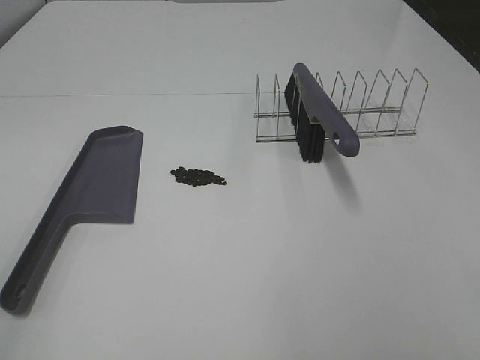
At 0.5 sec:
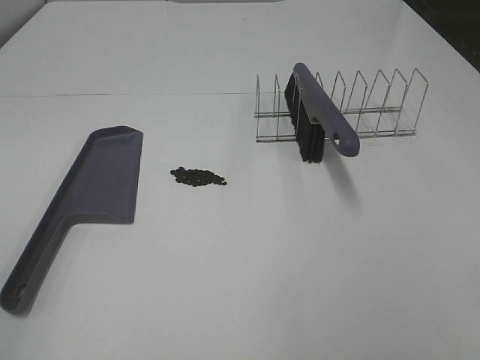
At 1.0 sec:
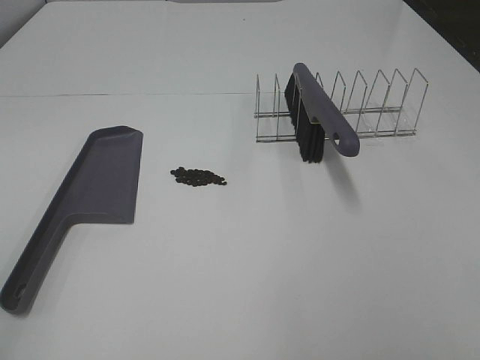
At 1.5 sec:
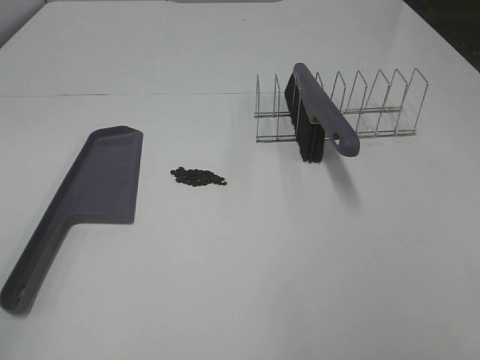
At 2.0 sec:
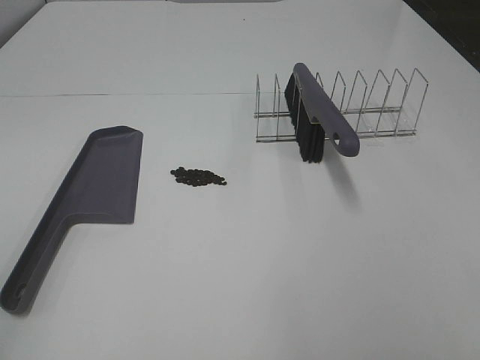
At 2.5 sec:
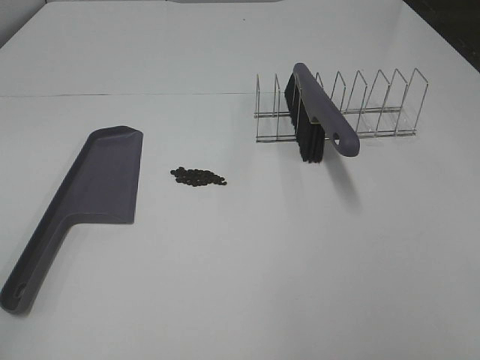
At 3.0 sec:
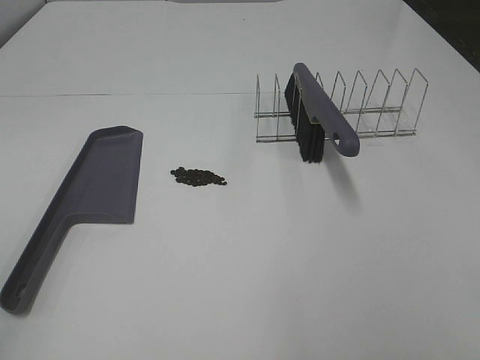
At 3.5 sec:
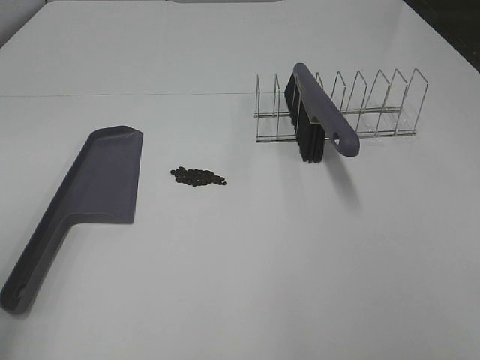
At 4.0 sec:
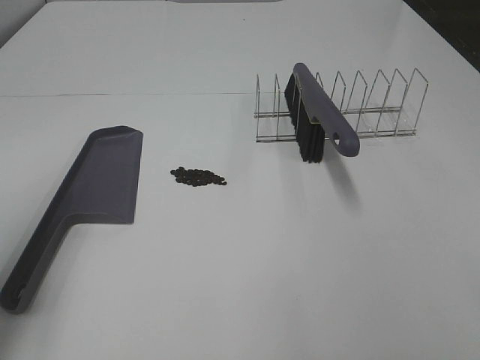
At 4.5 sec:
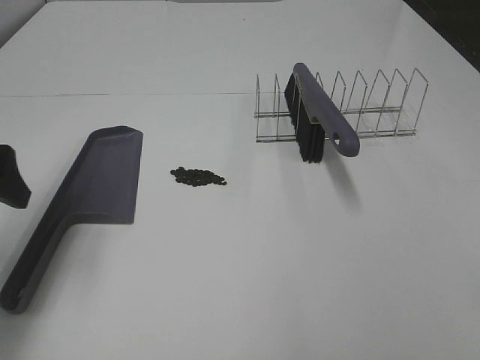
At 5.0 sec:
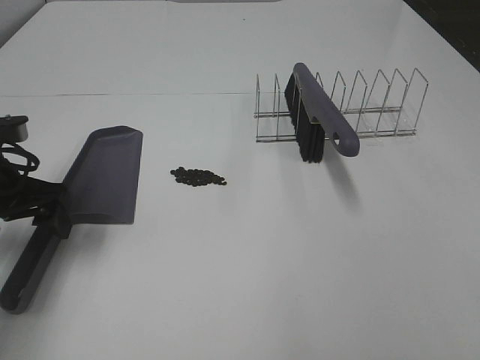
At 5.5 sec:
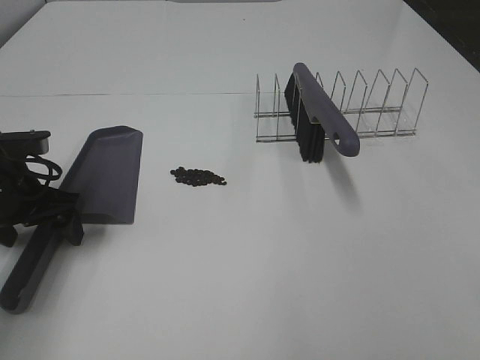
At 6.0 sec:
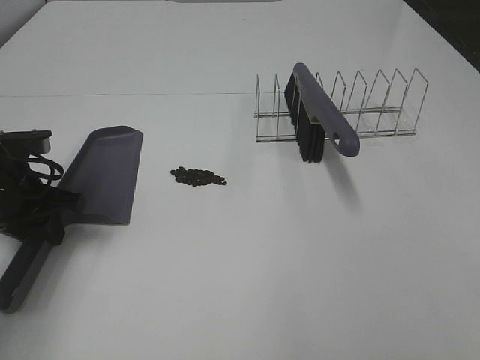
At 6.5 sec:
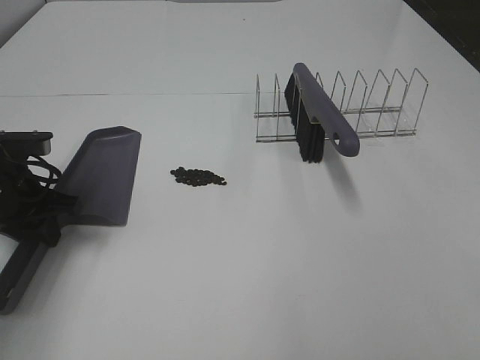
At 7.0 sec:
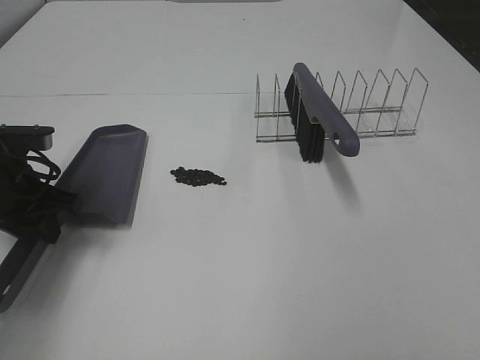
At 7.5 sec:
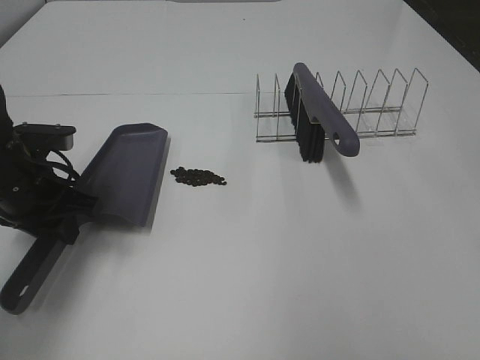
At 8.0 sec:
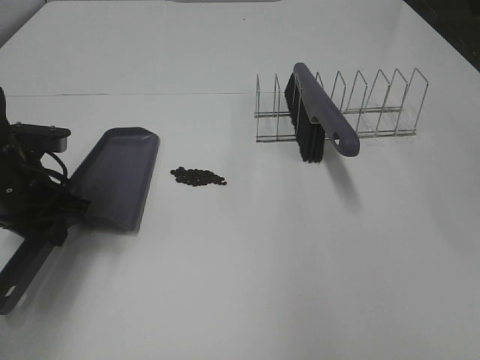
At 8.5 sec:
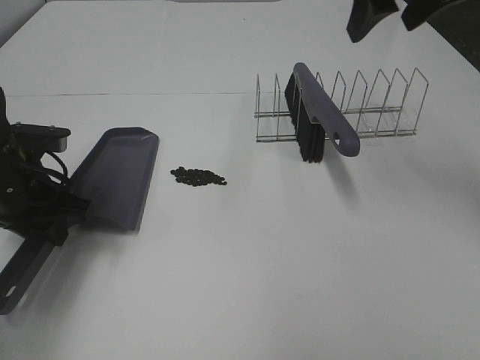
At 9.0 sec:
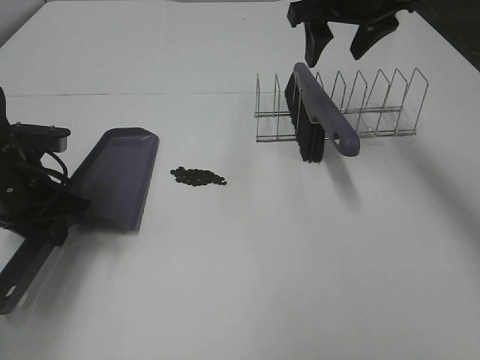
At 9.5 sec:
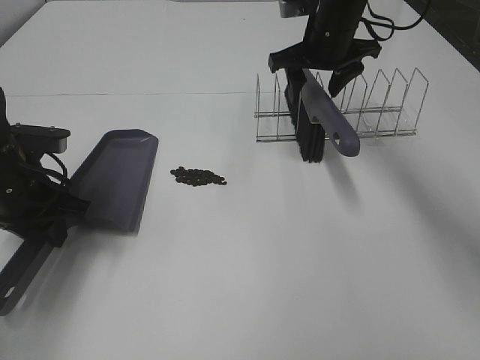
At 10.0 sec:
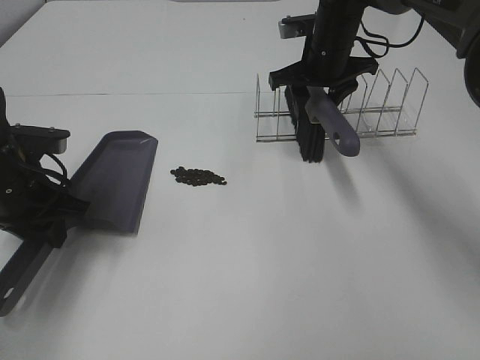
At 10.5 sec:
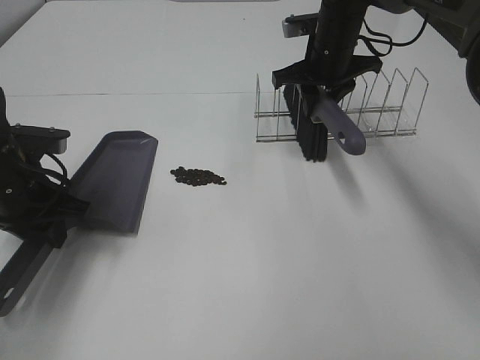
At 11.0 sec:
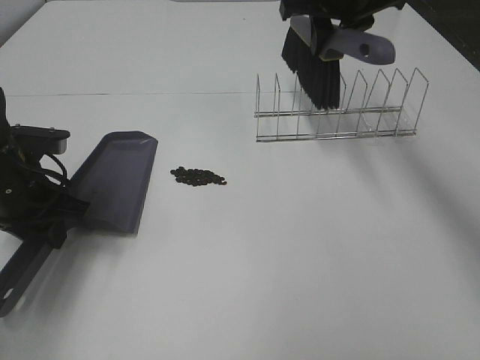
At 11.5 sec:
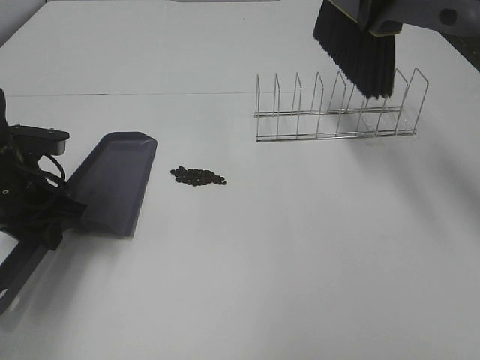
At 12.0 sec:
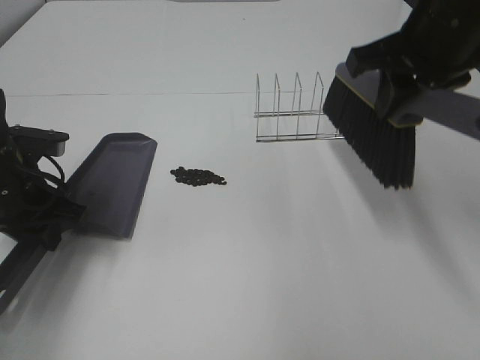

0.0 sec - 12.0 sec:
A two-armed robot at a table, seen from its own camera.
Task of the whole recording: Sweep Coffee Bean.
Step, 0.0 sec - 6.5 sec: Left hand: grab the dustpan.
Step, 7.0 sec - 10.0 sec: Right hand:grab the broom.
0.0 sec - 2.0 sec: Both grippers stay about where they are.
2.0 sec - 4.0 sec: The left gripper shifts some 15 cm forward.
4.0 sec - 6.0 sec: The left gripper travels downward and forward by approximately 25 cm, and closes.
8.0 sec - 10.0 sec: The right gripper moves forward, downward and to the left, some 35 cm.
10.0 sec - 12.0 sec: The right gripper shifts roughly 20 cm backward and upward, and closes up.

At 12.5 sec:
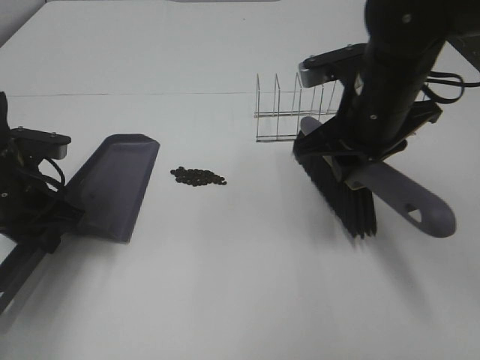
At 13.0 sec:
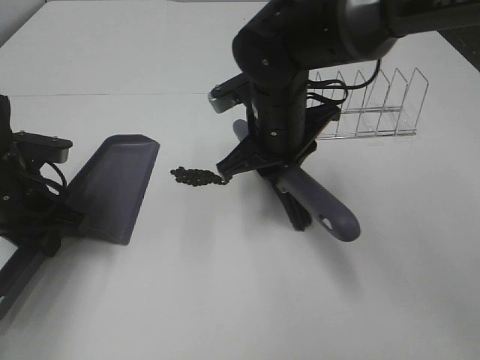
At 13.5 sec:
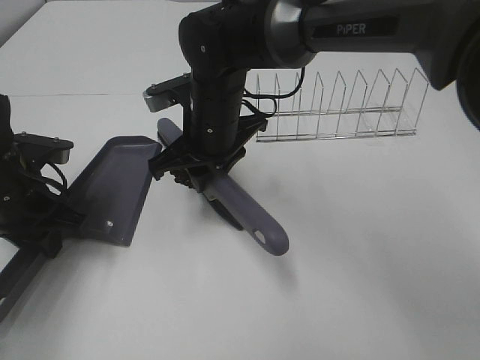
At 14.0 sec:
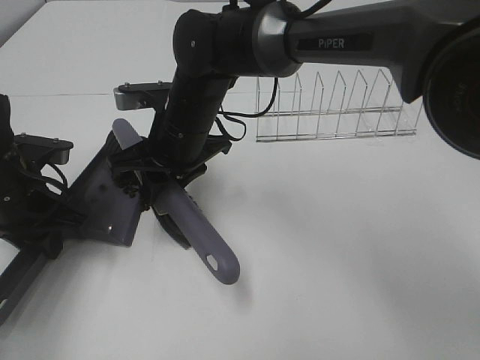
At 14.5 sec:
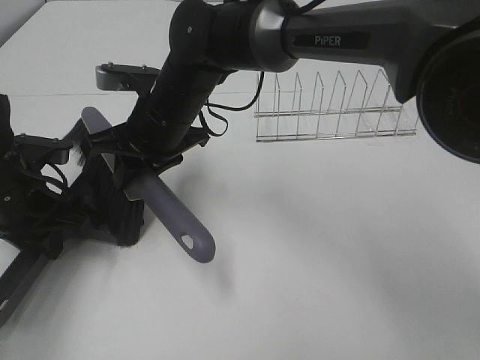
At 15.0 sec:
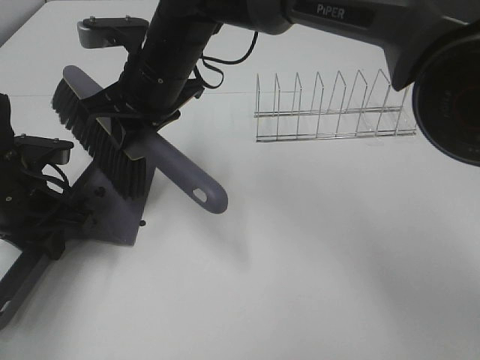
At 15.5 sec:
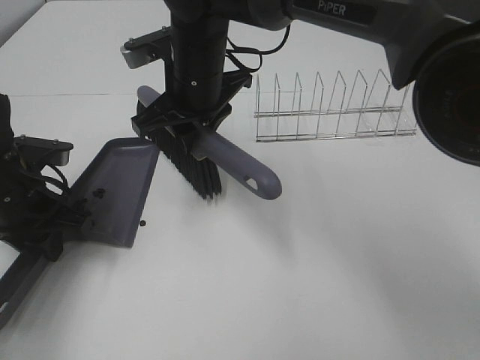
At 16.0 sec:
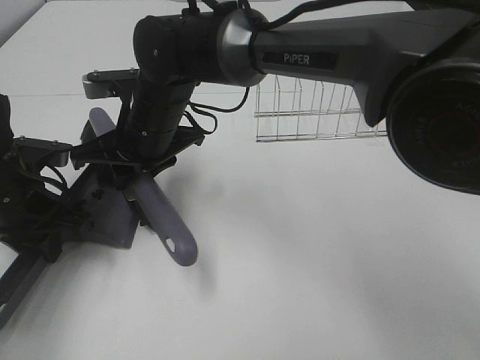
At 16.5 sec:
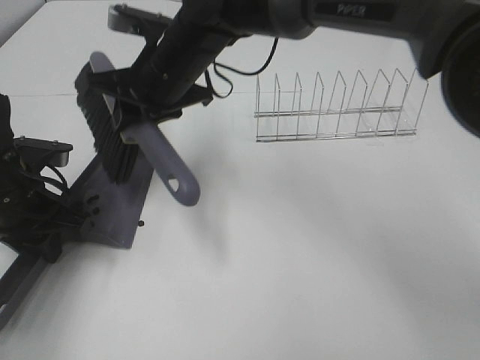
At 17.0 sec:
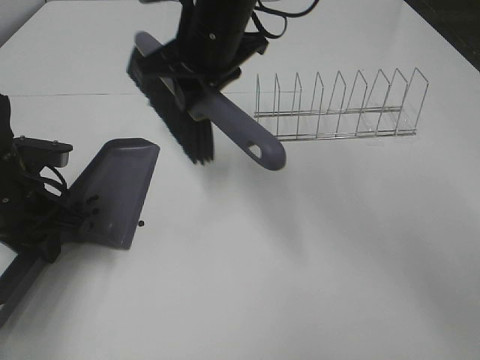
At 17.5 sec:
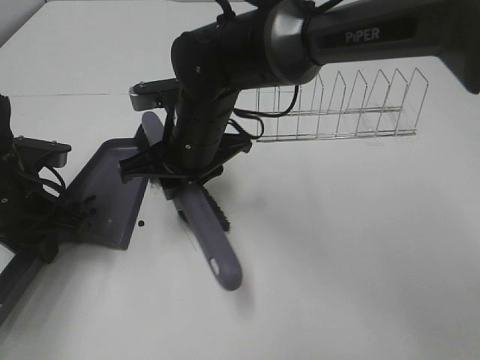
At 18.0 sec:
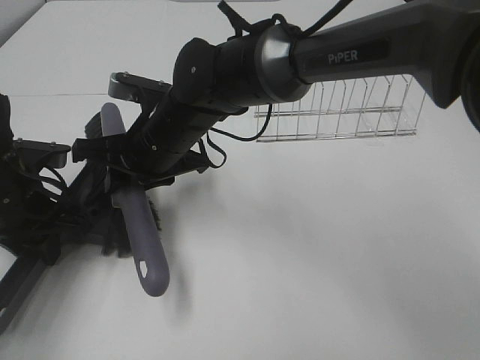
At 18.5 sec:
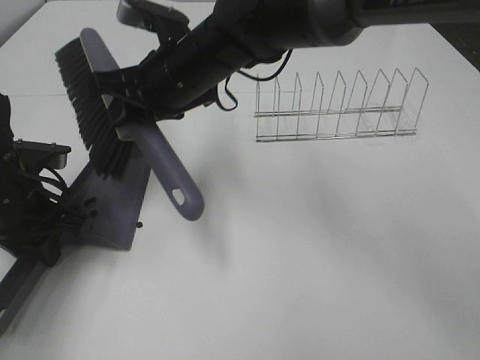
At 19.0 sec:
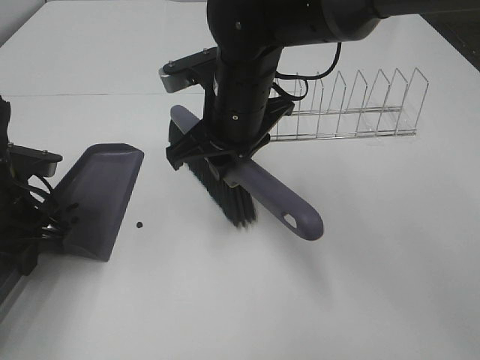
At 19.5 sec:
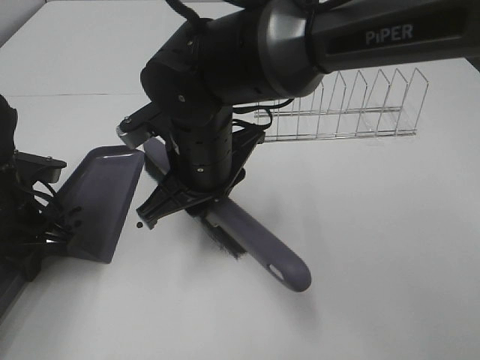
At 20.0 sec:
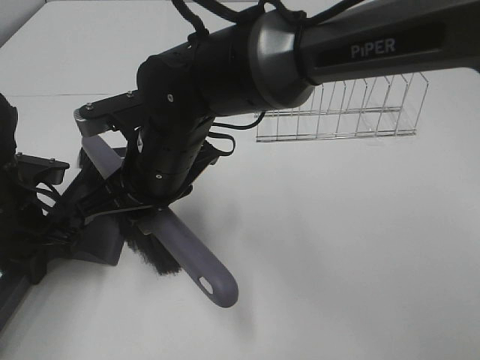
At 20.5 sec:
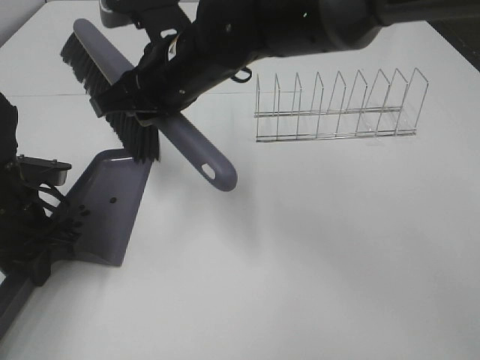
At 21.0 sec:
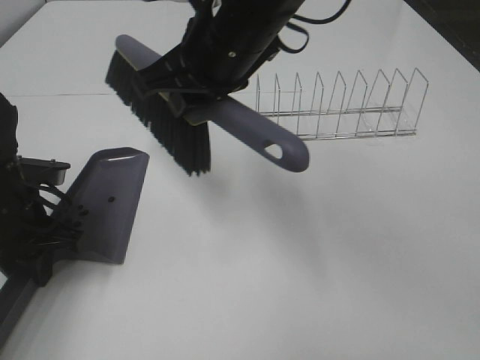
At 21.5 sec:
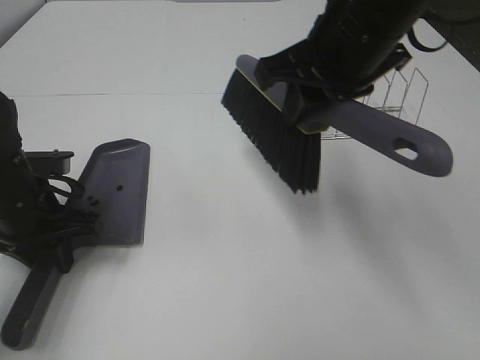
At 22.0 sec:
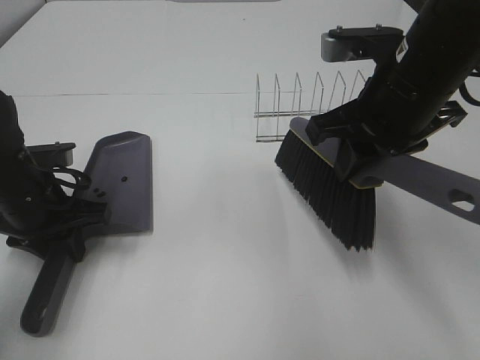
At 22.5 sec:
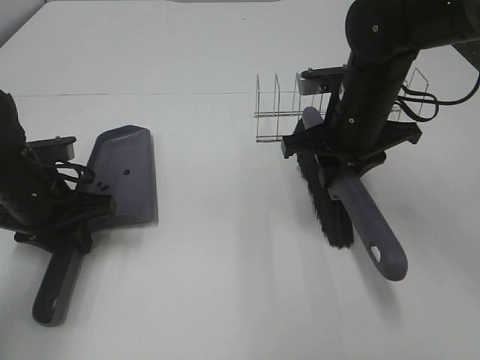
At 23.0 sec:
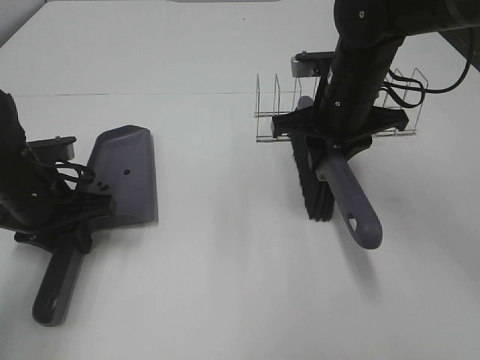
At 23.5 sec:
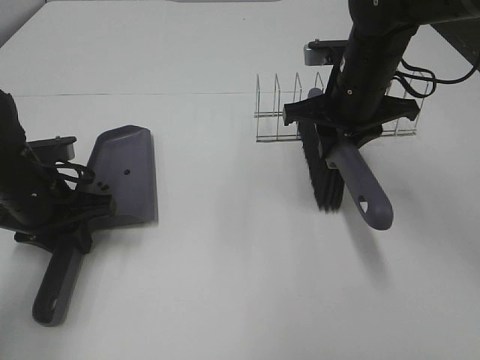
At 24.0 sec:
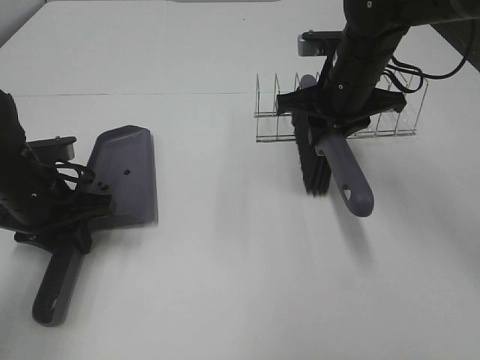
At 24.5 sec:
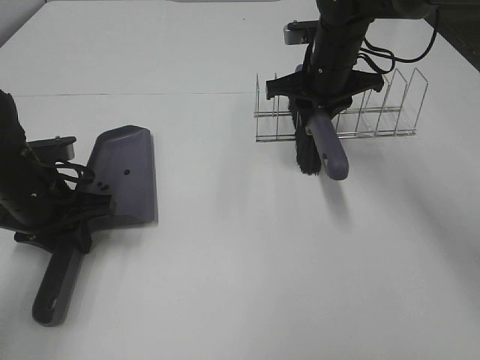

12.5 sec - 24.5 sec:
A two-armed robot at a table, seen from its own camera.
Task of the whole recording: Sweep Coffee Bean.
Step, 12.5 sec - 20.0 sec: Right hand:sweep the coffee beans into the dustpan.
12.5 sec - 14.5 sec: The right gripper travels to the left by roughly 20 cm.
14.5 sec - 16.5 sec: The right gripper goes up and down, roughly 5 cm each way, reversing 2 times.
16.5 sec - 18.5 sec: The right gripper goes downward and returns, roughly 5 cm each way.
20.5 sec - 22.5 sec: The right gripper is displaced to the right by approximately 20 cm.
22.5 sec - 24.5 sec: The right gripper is displaced forward by about 10 cm.

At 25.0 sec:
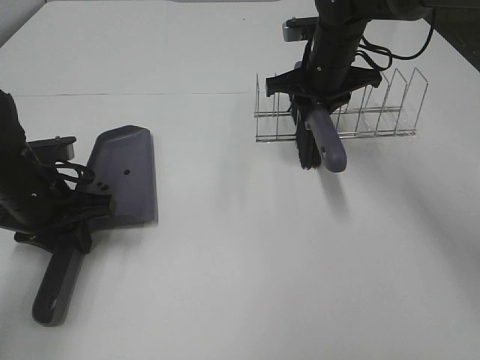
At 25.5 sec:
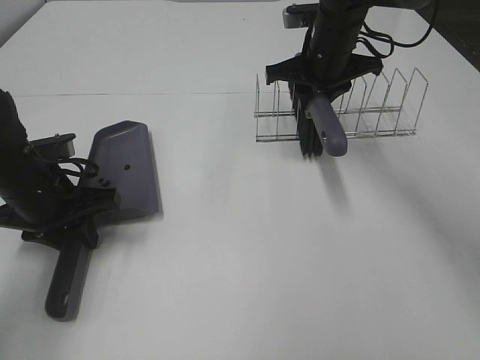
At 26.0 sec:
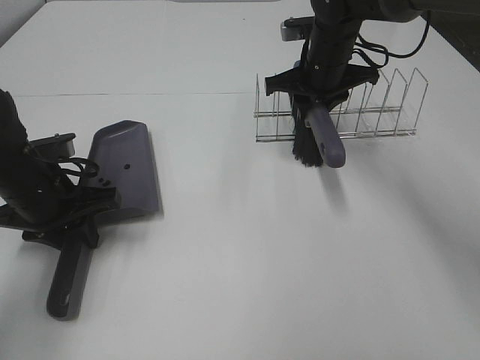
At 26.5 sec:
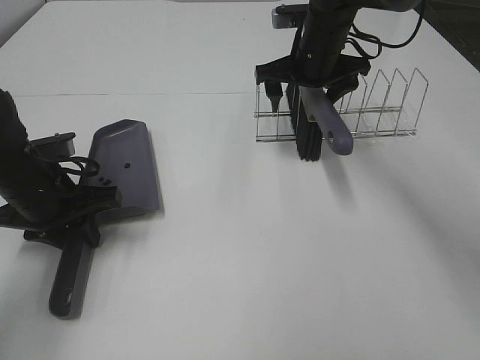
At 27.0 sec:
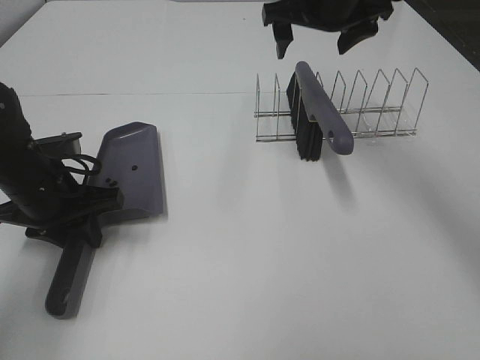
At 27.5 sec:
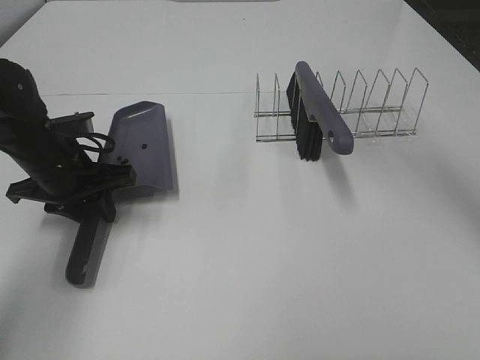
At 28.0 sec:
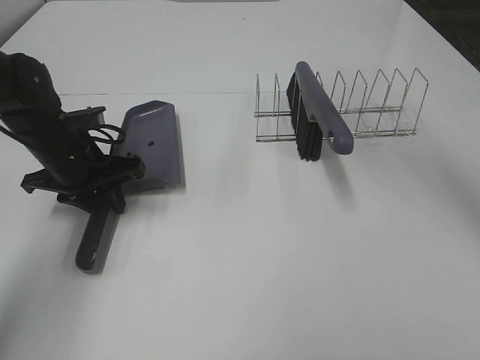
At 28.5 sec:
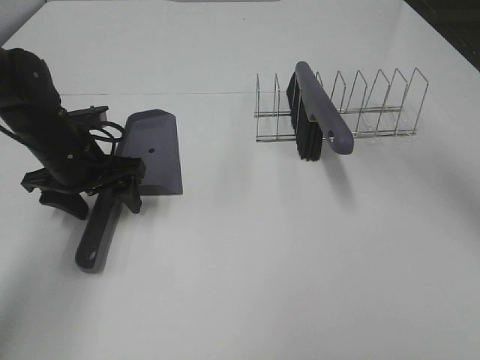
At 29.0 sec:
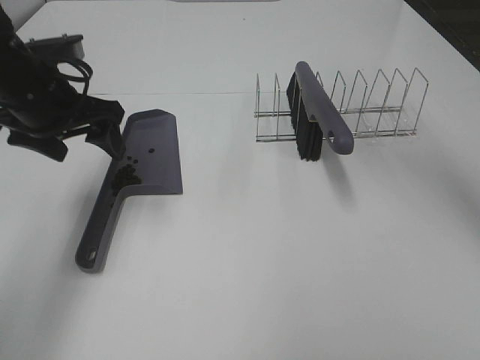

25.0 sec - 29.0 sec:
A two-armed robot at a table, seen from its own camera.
Task of the whole recording: Sweep Coffee Bean.
Step, 27.0 sec - 28.5 sec: Left hand:place the dustpan on the table.
25.0 sec - 27.0 sec: The right gripper moves upward, some 10 cm, and opens up.
27.0 sec - 29.0 sec: The left gripper moves upward, approximately 10 cm, and opens up, while the right gripper heads upward and backward, covering some 15 cm.